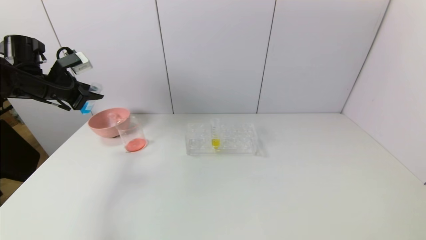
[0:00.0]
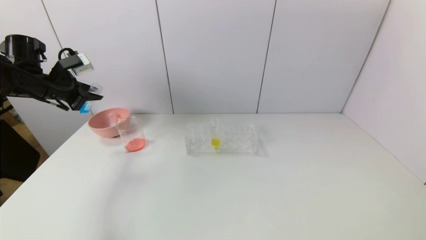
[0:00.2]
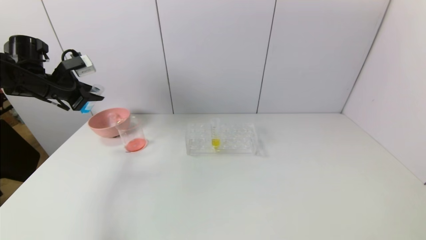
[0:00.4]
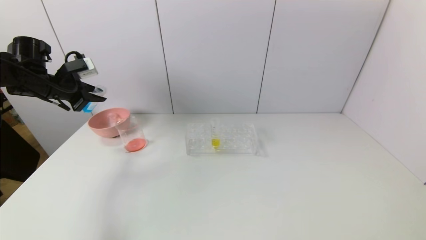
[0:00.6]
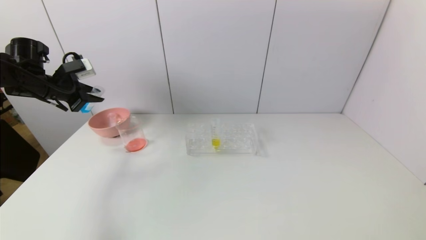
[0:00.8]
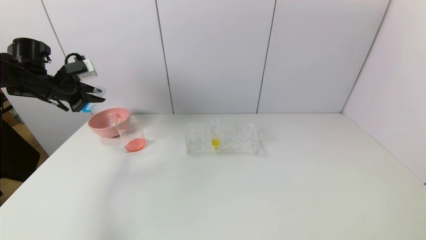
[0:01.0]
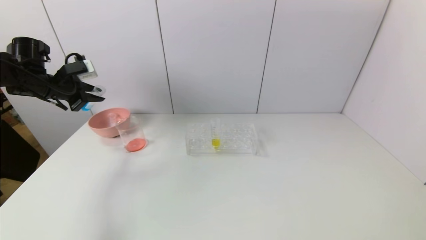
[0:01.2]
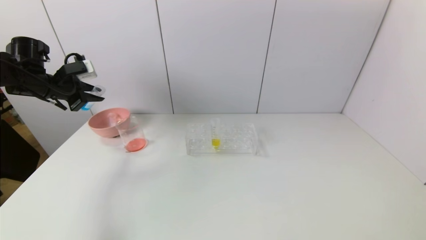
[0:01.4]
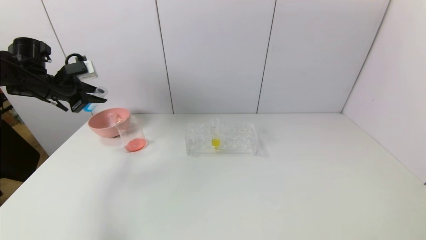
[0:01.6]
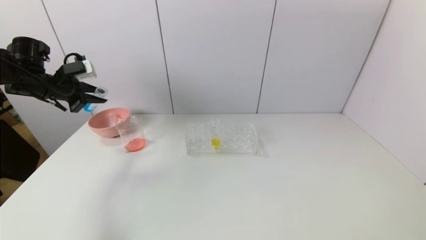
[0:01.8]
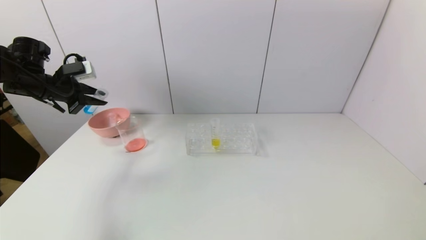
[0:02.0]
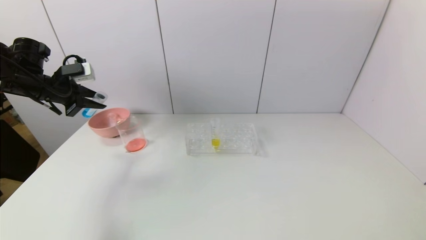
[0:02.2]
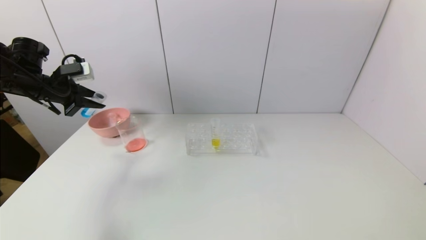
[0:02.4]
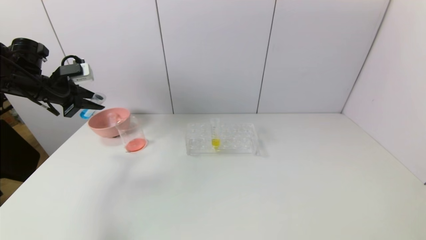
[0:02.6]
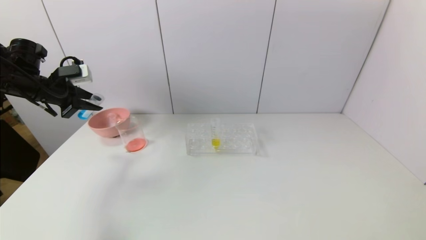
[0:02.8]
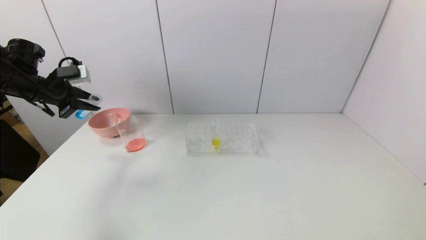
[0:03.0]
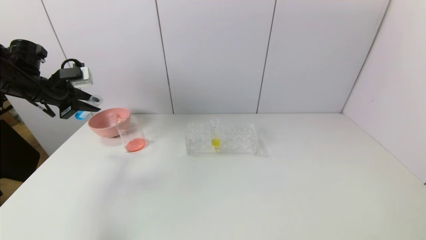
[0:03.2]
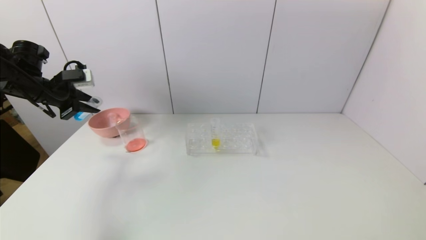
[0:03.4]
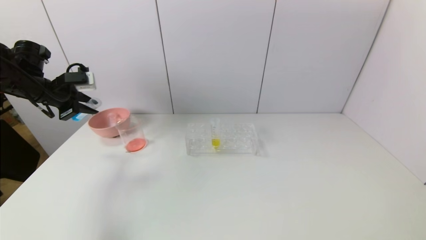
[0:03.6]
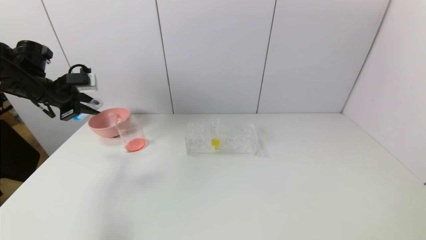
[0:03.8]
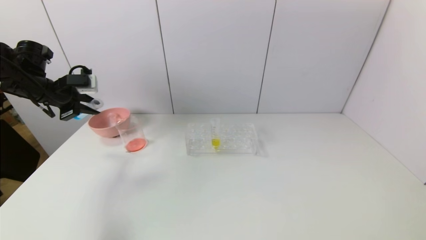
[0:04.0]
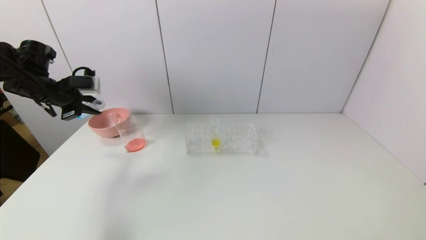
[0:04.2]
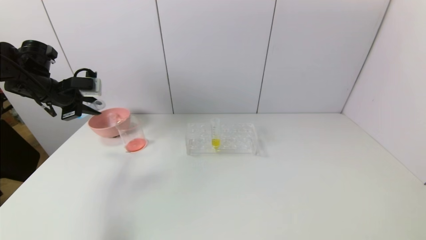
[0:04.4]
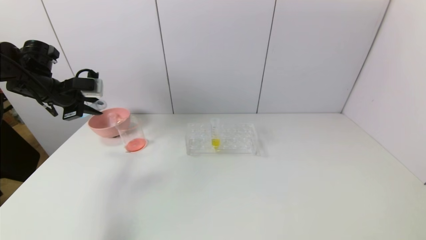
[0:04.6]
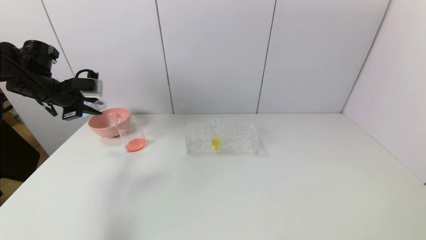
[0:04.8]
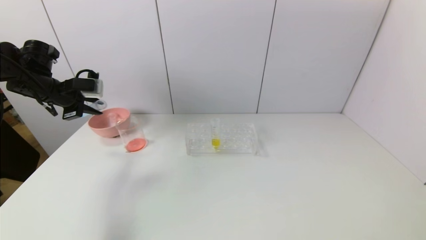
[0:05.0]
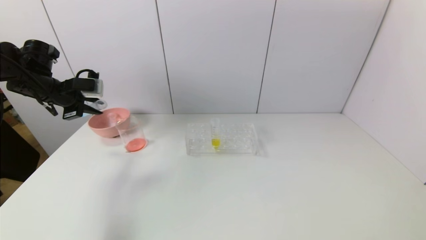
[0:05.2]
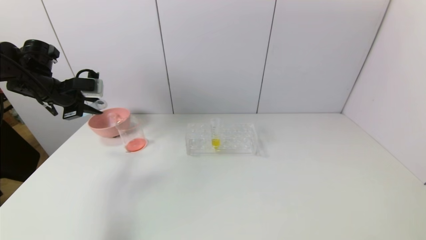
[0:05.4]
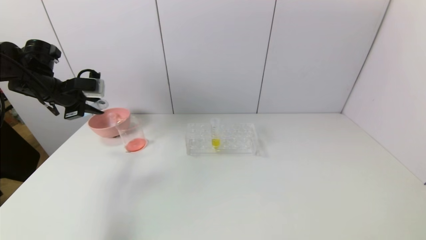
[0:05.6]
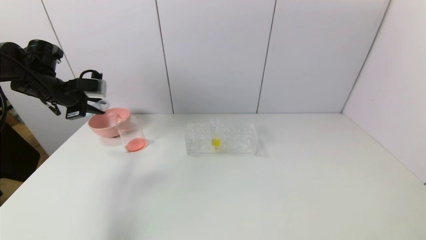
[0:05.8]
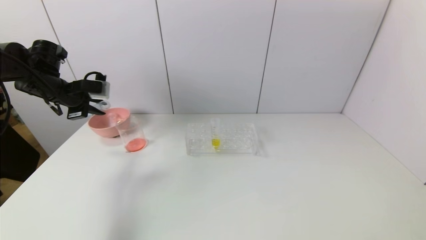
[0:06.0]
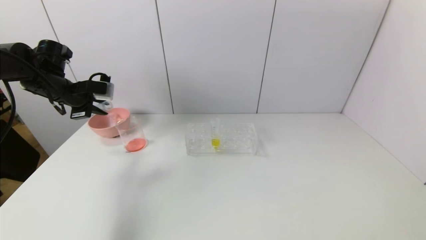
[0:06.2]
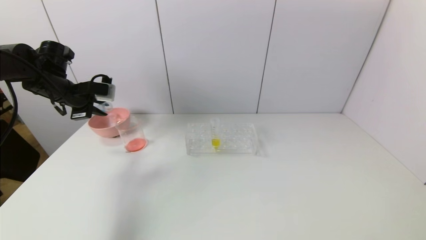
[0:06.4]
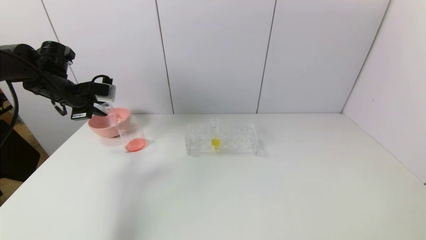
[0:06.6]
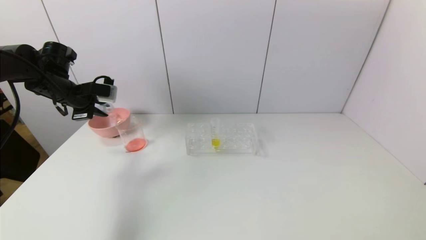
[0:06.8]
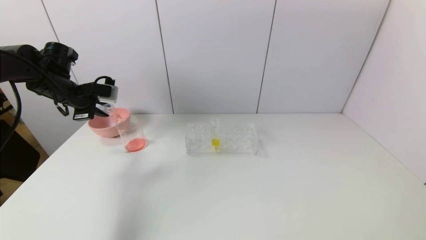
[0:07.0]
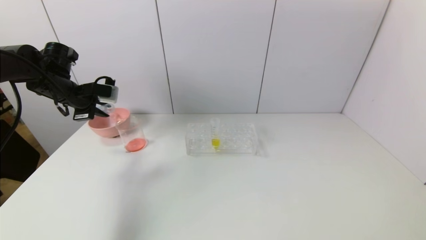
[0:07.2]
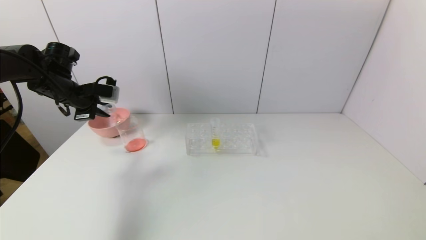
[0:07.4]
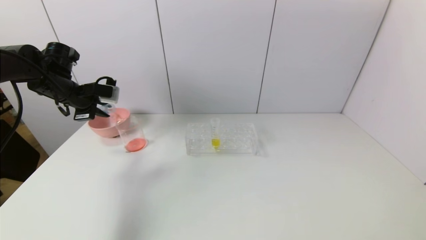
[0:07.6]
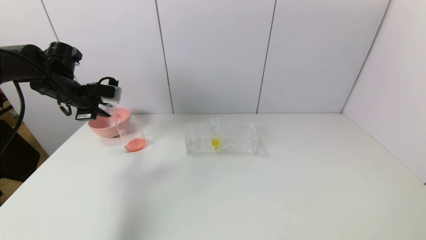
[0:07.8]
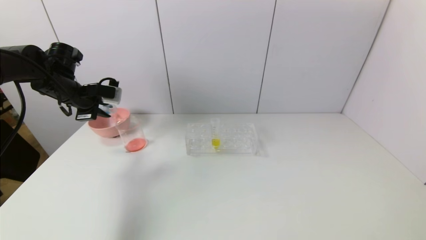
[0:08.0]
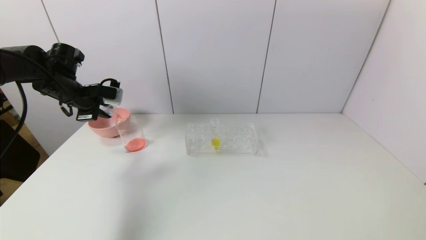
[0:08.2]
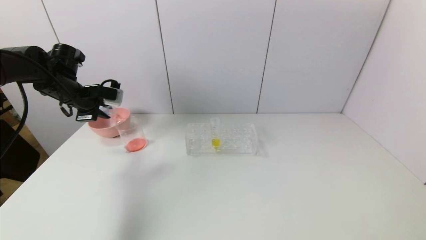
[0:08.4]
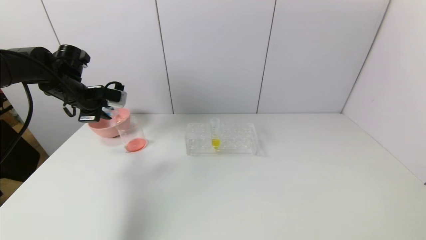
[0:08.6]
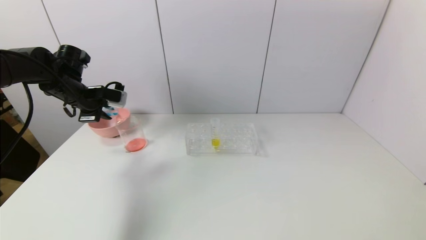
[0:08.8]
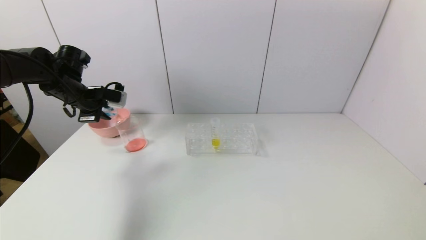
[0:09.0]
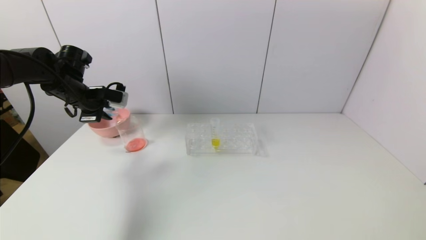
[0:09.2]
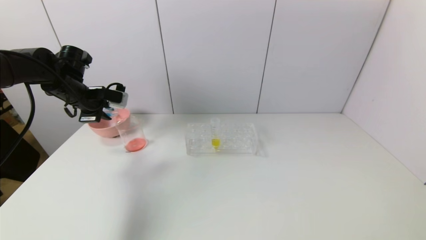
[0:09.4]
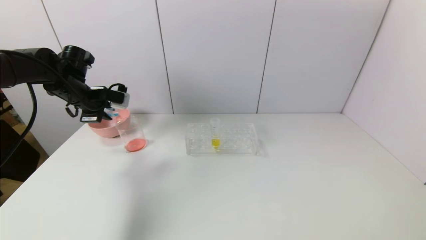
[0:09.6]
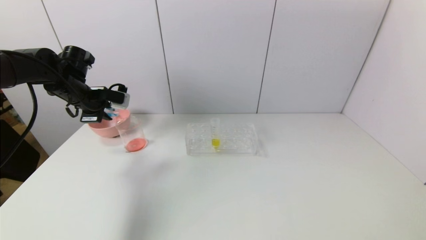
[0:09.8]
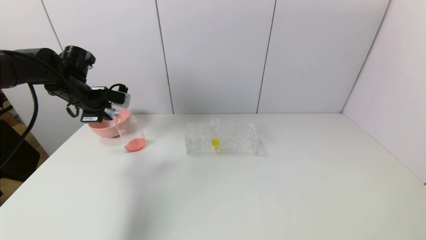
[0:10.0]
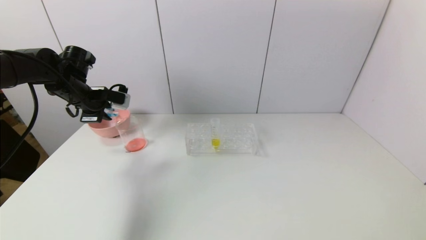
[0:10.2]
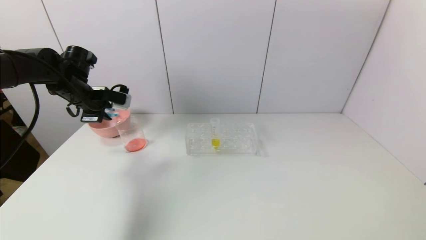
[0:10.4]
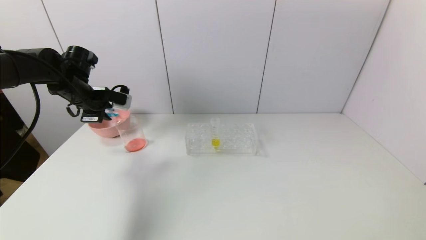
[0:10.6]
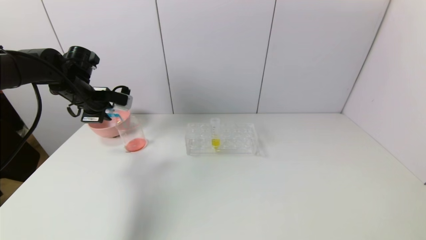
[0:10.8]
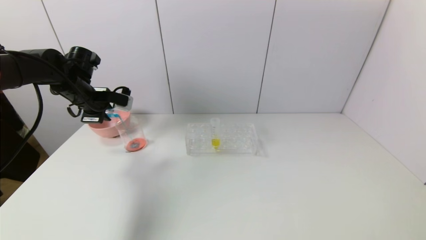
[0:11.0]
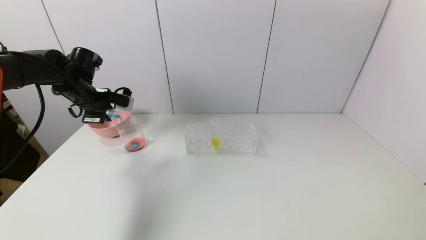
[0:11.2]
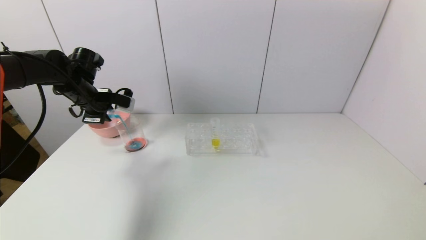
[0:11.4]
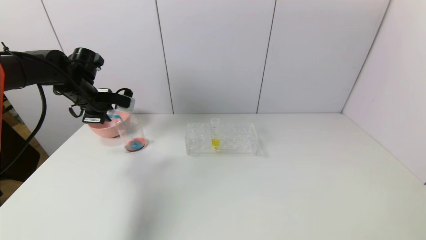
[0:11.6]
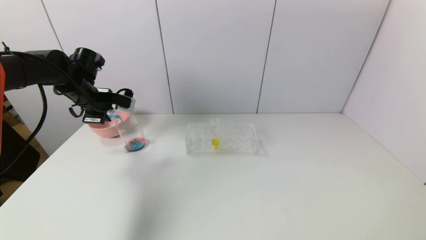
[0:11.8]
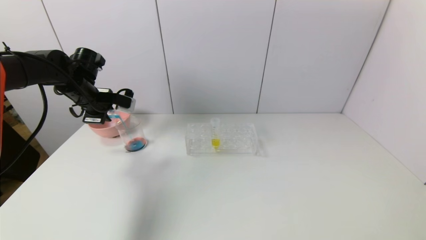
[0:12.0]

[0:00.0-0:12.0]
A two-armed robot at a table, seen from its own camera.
Task of the whole recording: pick up the test tube with red pigment and the test tube with blue pigment by grippers and pour them into the container.
0:00.0 to 0:01.6: There are only small adjustments of the grippers.
0:01.6 to 0:04.4: The grippers move only a little.
0:04.4 to 0:09.0: The grippers stay close to where they were, moving slightly.
0:09.0 to 0:10.4: Both grippers stay put.
0:10.4 to 0:12.0: The grippers move only a little.

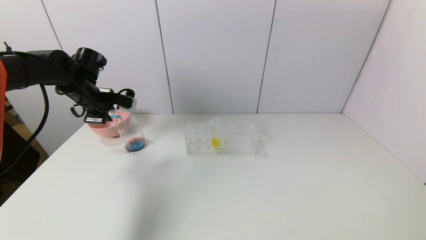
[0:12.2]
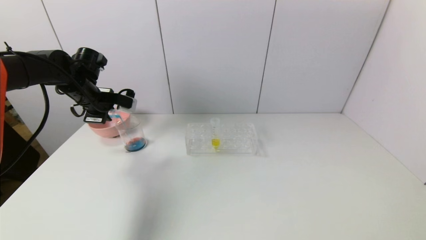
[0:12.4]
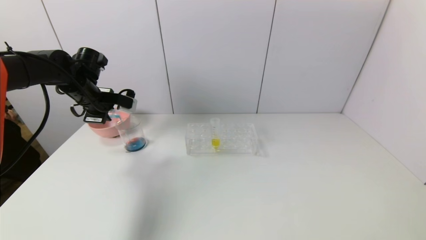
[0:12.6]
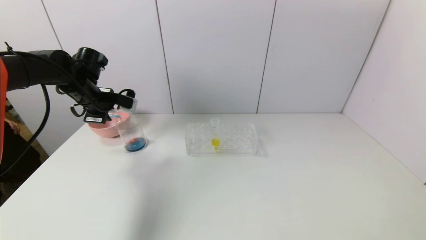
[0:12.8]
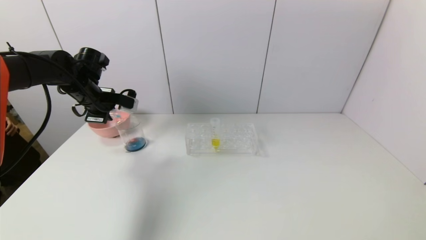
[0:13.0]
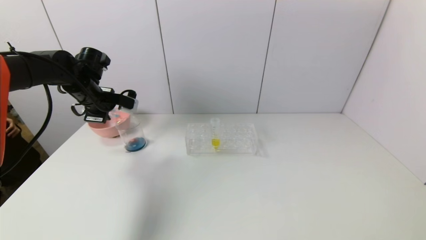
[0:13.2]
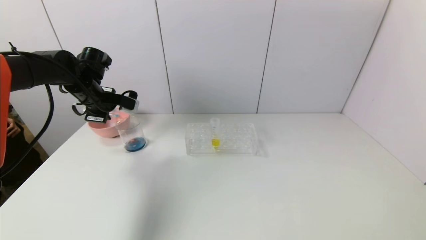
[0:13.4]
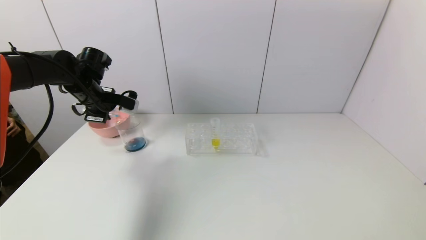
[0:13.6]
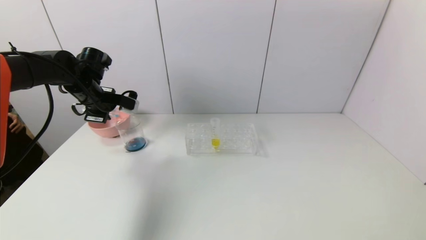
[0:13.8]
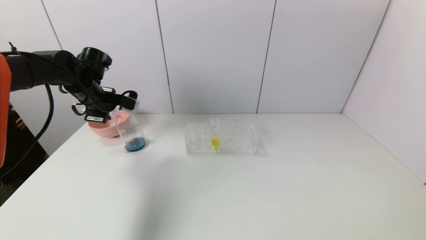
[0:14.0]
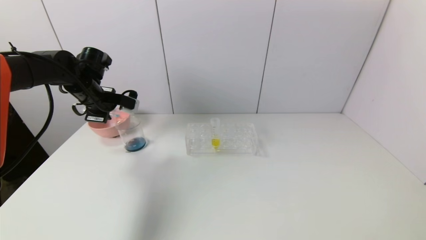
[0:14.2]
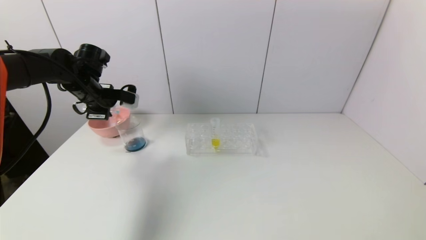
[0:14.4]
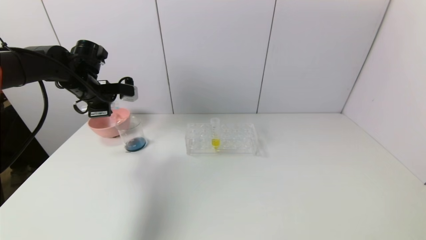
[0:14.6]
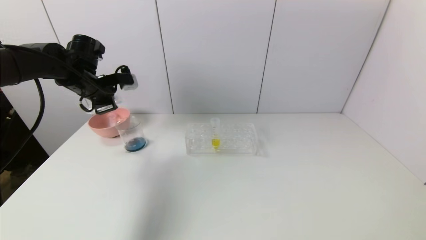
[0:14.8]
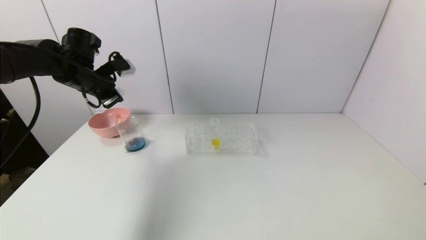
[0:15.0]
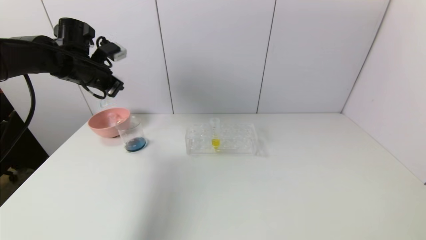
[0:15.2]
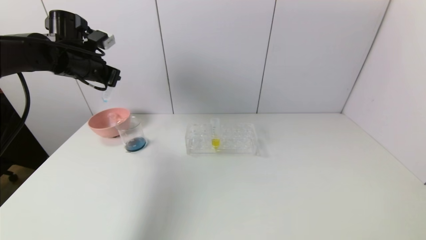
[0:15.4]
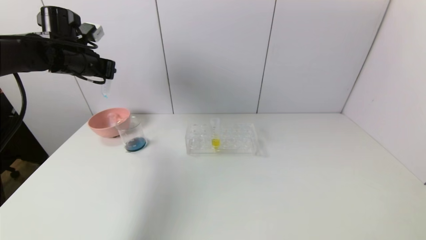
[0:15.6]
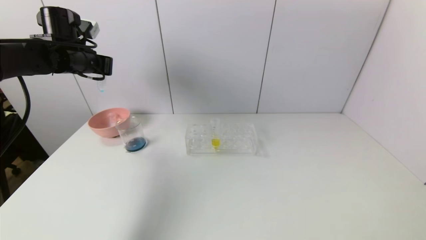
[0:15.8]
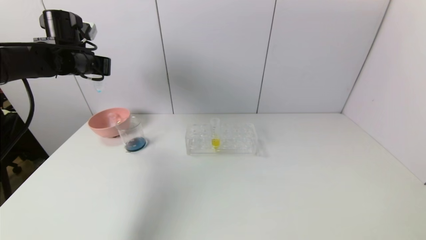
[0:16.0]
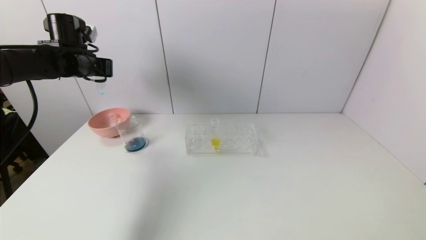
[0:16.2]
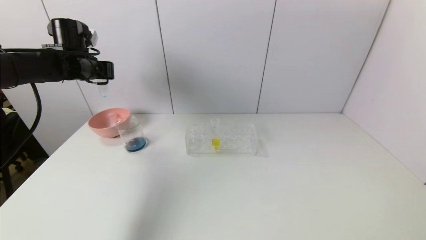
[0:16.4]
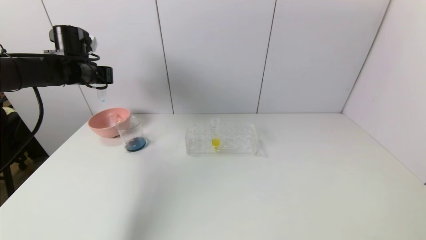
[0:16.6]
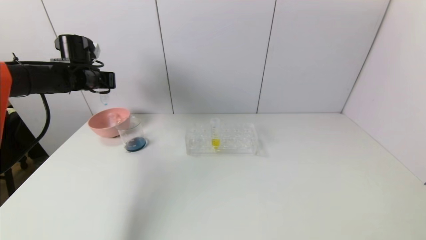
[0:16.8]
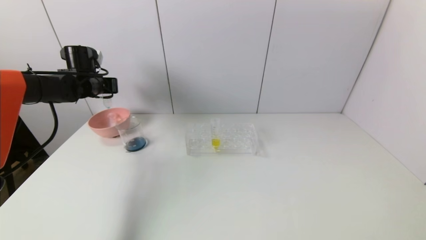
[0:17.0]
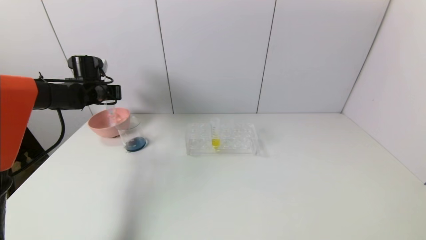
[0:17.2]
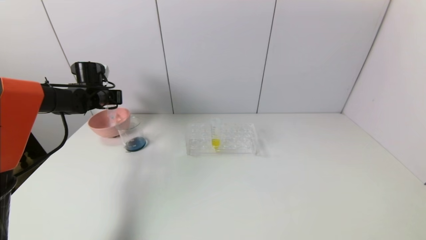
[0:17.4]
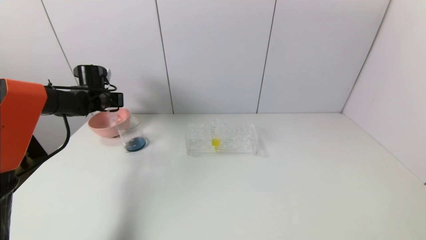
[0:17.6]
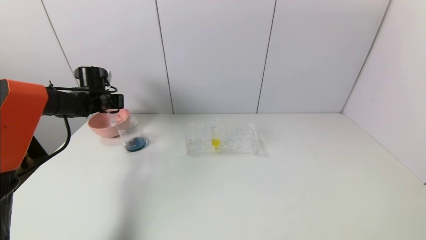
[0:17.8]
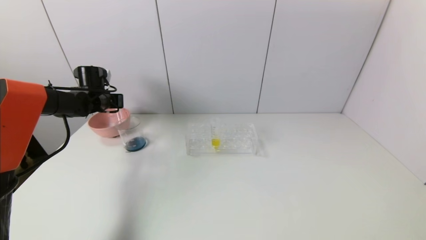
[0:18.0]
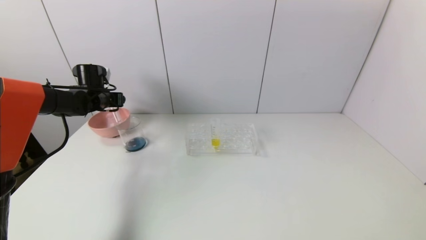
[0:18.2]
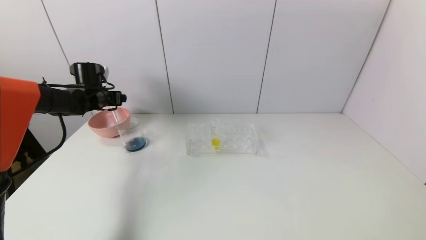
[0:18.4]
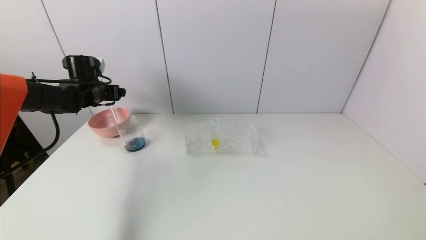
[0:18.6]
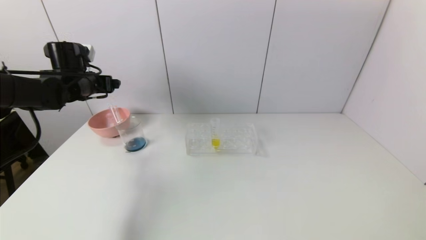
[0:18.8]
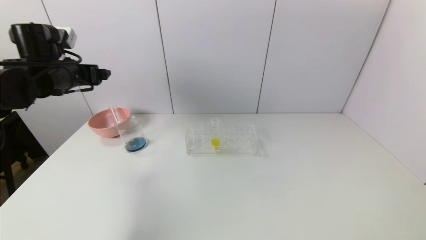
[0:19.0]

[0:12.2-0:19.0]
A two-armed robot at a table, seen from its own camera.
Task of the whole recording: pick up the test tube with red pigment and the test tube with blue pigment by grippers and pour them into the container.
Step, 0:12.2 to 0:15.0: Pour the blue reagent into the graduated cylinder with the left gripper.
Step, 0:15.2 to 0:18.8: Place the test tube into the bowl with the left gripper.
0:12.2 to 0:13.6: The grippers make only small movements.
0:16.2 to 0:17.6: The left gripper travels downward and forward by about 15 cm.
0:17.6 to 0:19.0: The left gripper travels backward and upward by approximately 15 cm, and opens.
